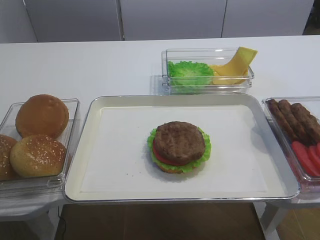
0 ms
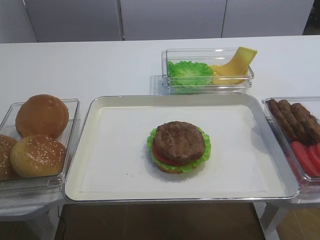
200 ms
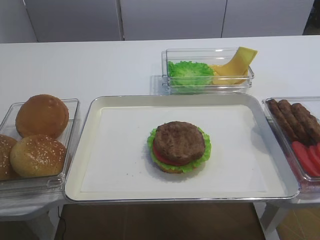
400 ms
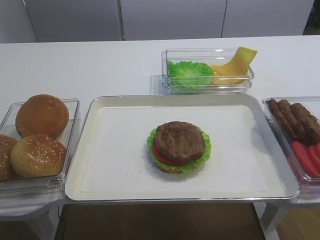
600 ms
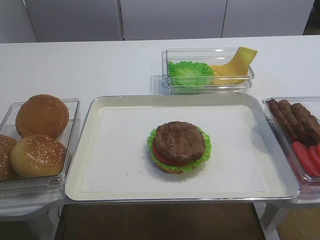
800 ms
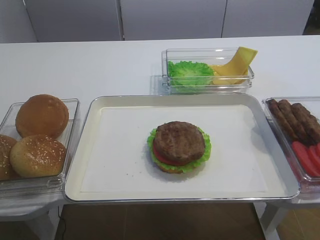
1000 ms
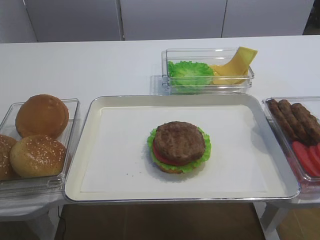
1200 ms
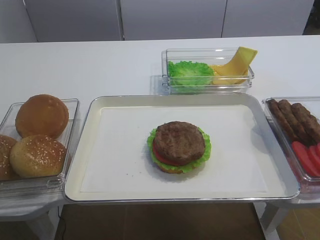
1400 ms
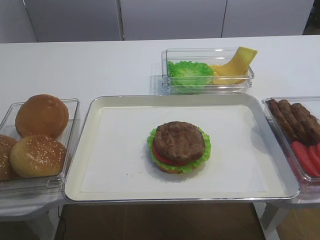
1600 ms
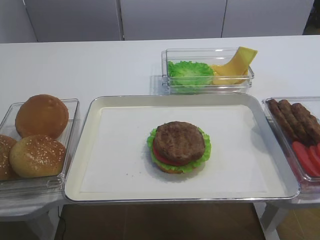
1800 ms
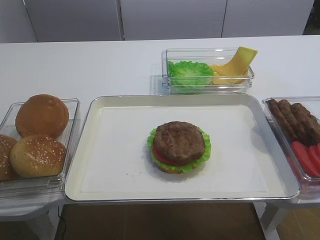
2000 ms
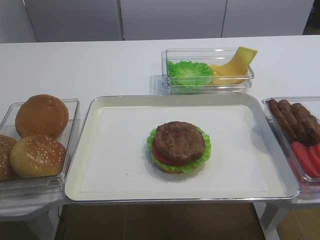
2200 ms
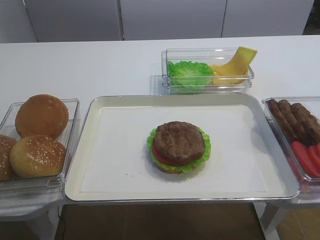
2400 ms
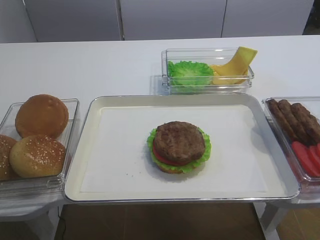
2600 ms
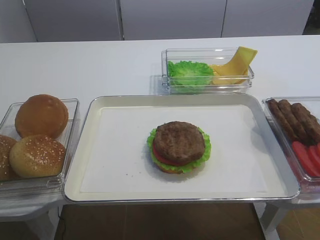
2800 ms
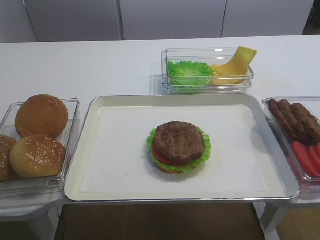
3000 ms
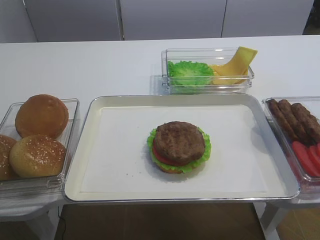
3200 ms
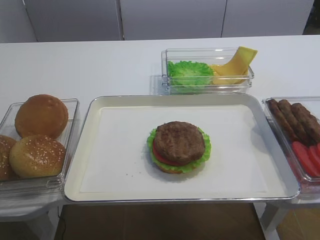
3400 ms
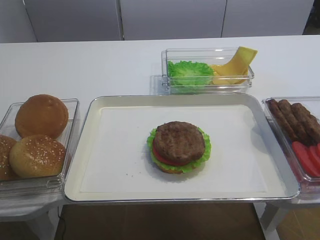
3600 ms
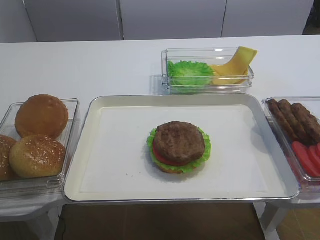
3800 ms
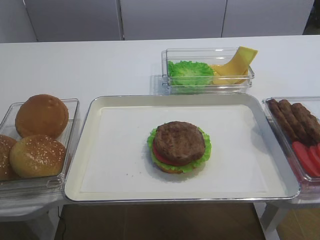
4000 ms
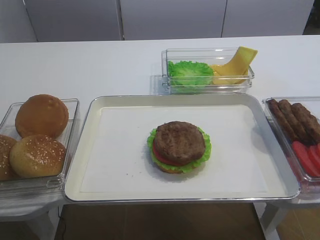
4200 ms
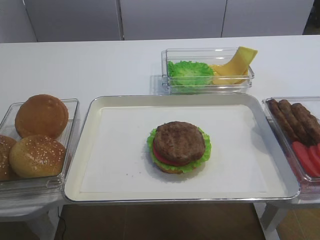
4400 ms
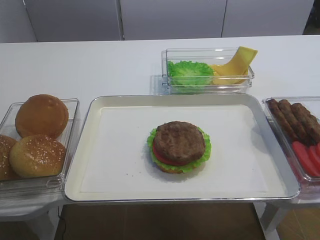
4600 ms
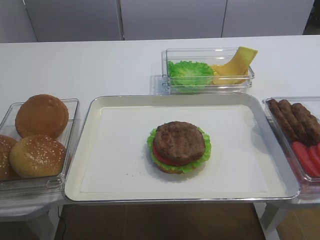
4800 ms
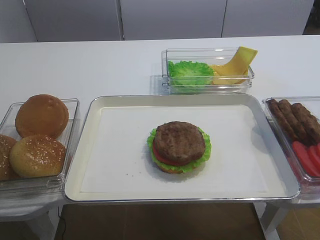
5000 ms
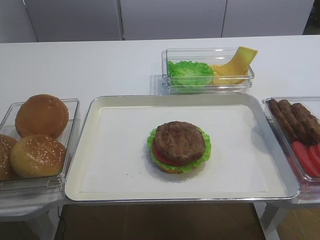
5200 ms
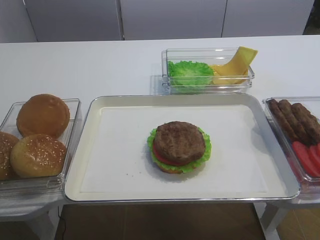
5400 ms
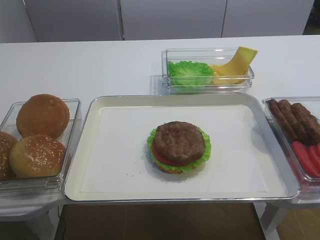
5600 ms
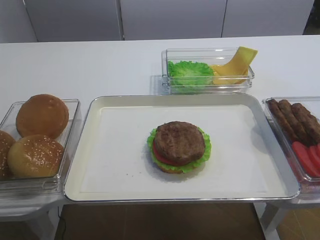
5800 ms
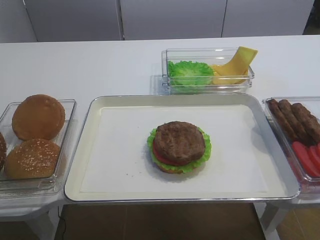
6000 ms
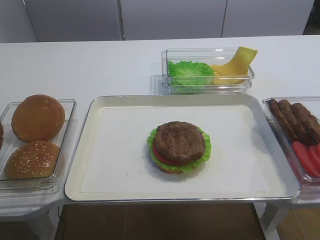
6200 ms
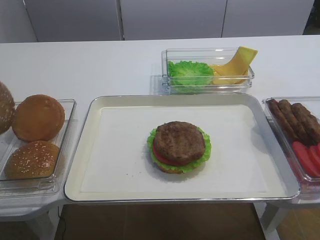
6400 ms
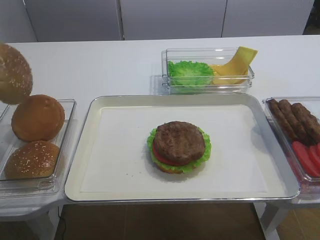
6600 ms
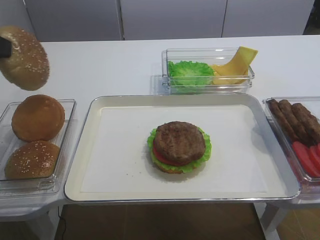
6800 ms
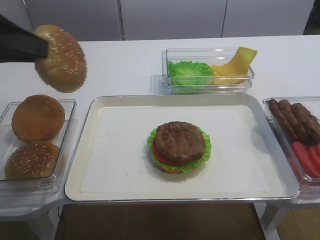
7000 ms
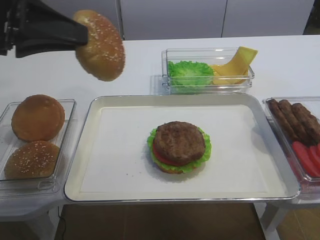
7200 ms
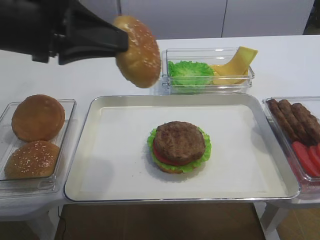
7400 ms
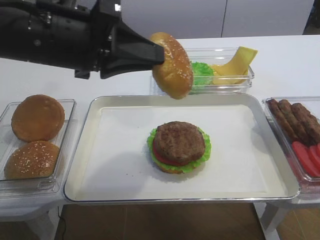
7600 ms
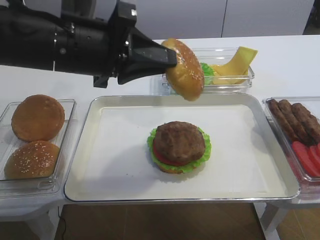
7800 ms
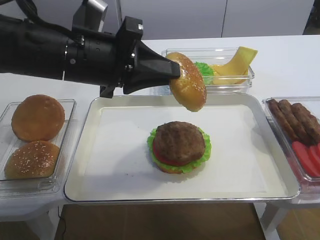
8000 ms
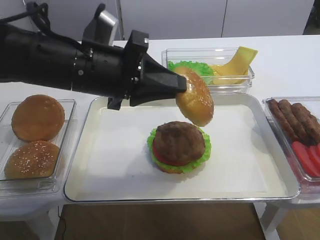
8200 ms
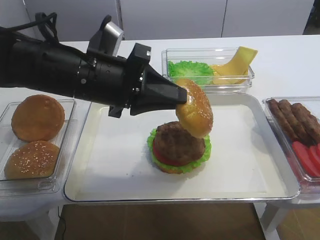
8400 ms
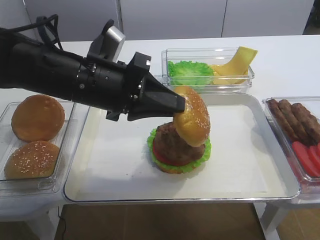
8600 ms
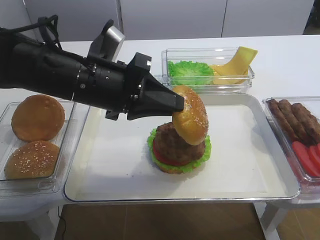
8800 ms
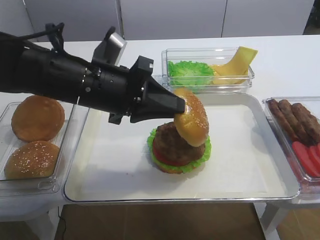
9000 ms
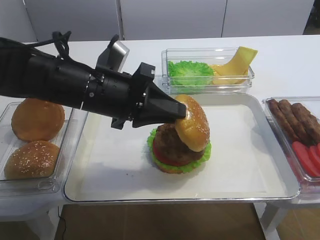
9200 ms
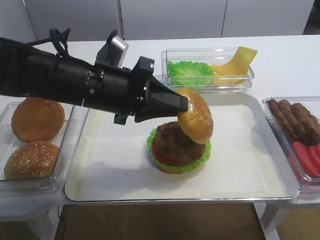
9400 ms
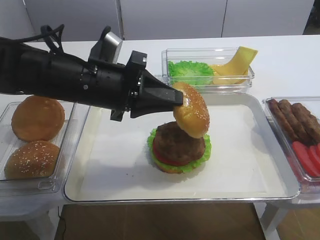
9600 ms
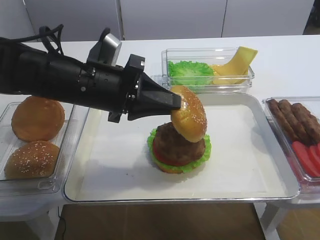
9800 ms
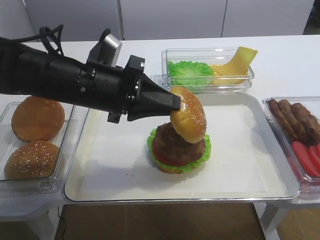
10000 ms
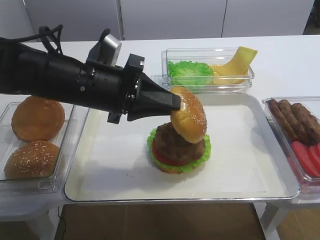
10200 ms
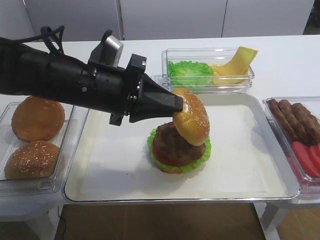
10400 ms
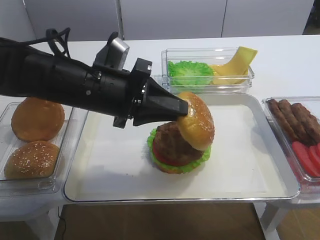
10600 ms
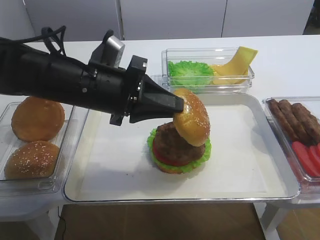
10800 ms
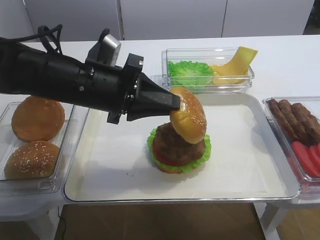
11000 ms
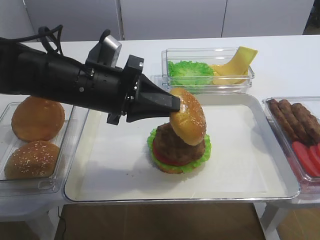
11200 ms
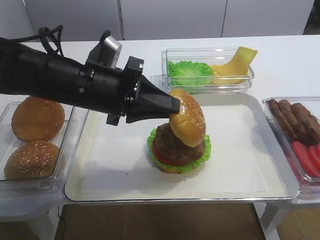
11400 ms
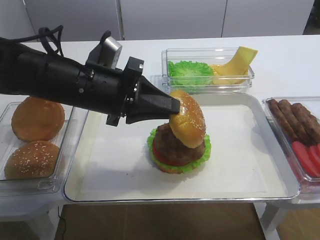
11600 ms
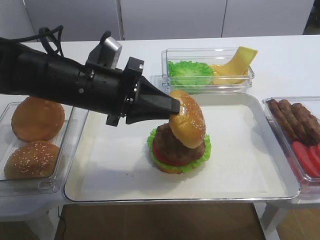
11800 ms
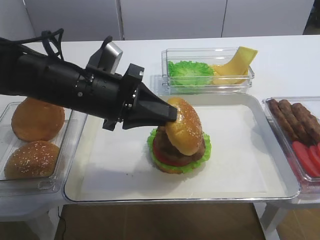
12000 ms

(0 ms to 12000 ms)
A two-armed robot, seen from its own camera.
Step, 0 ms - 6000 ms: Pick up the hamburger lid with the left gripper.
4400 ms - 6000 ms: The left gripper closes up.
6000 ms - 7600 ms: The left gripper travels to the right by about 20 cm.
7600 ms - 9000 ms: The left gripper shifts some 10 cm downward.
9000 ms - 10400 ms: Neither gripper changes place.
10400 ms - 12000 ms: Both grippers stay put.

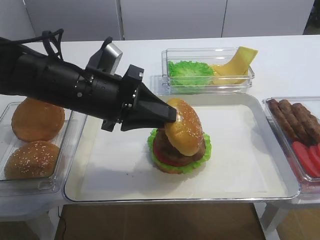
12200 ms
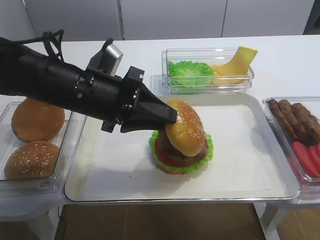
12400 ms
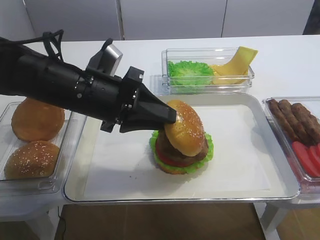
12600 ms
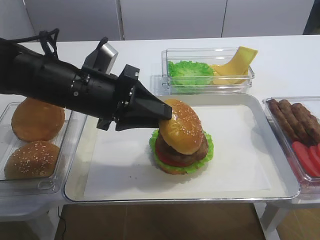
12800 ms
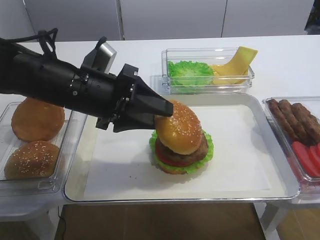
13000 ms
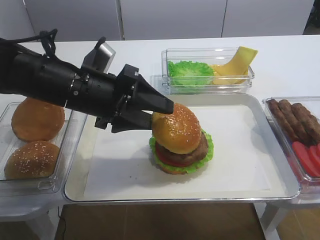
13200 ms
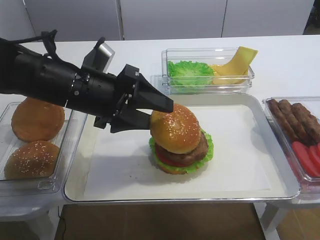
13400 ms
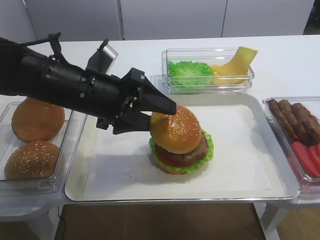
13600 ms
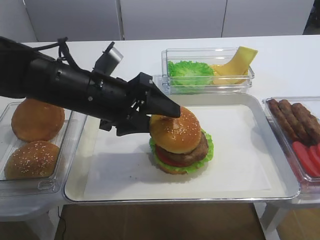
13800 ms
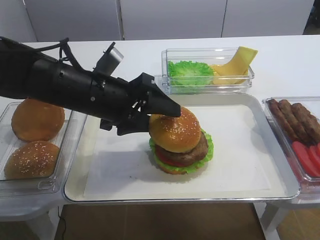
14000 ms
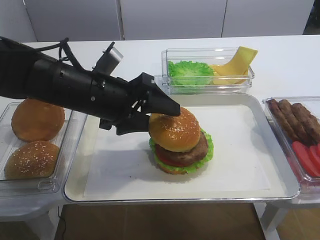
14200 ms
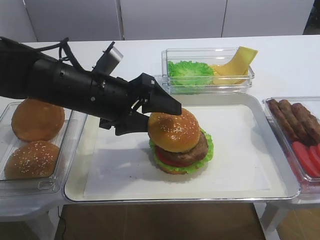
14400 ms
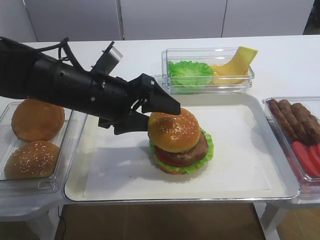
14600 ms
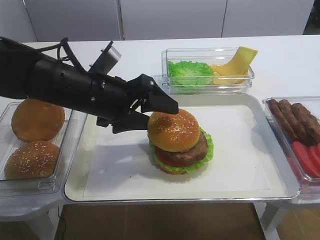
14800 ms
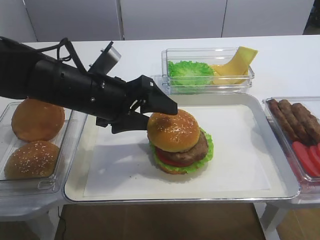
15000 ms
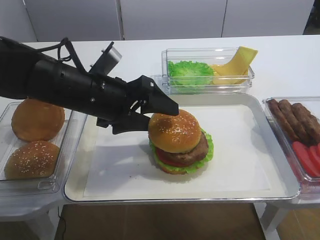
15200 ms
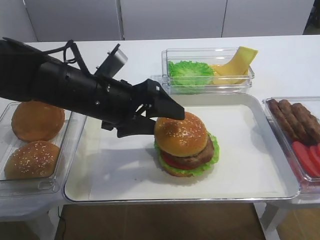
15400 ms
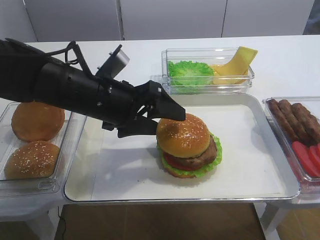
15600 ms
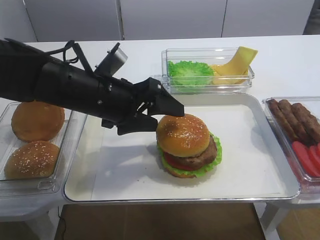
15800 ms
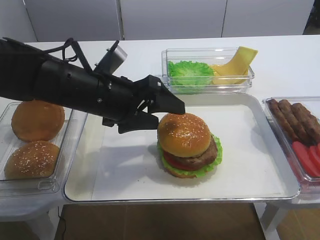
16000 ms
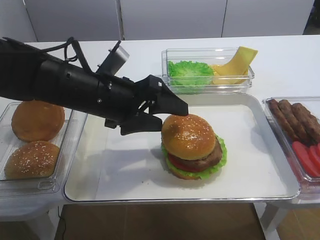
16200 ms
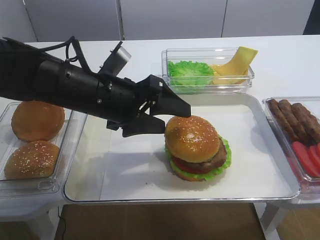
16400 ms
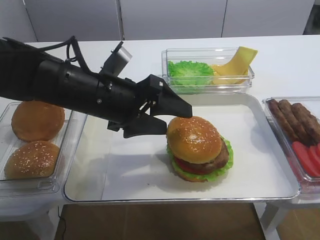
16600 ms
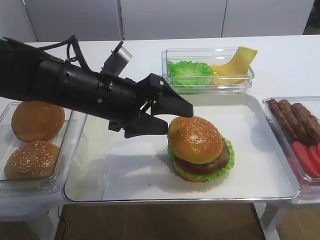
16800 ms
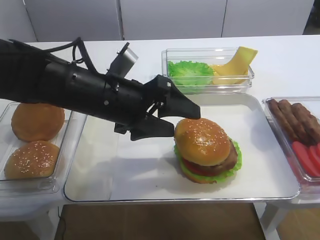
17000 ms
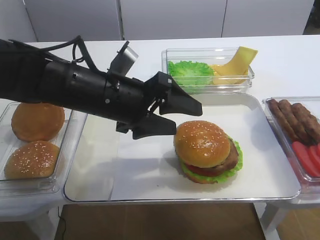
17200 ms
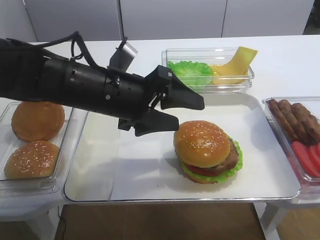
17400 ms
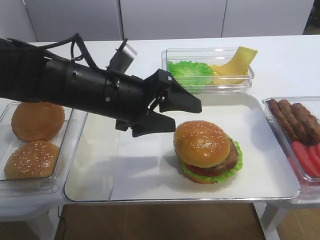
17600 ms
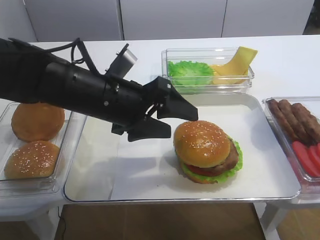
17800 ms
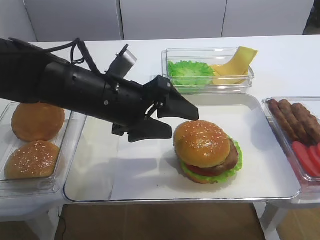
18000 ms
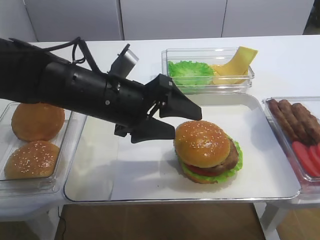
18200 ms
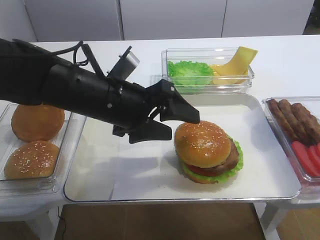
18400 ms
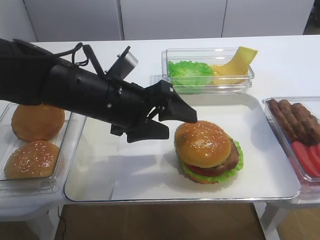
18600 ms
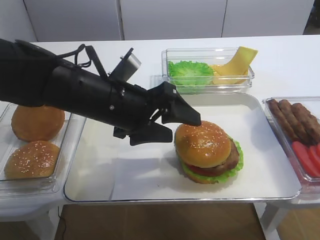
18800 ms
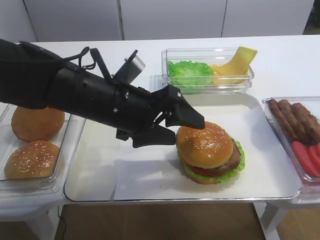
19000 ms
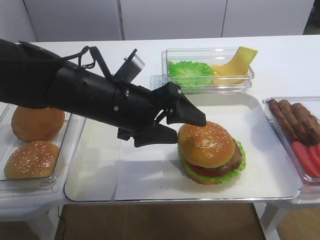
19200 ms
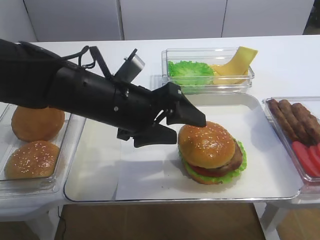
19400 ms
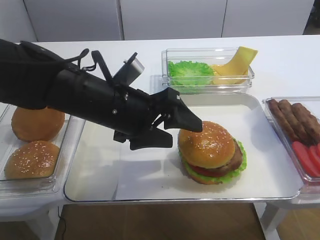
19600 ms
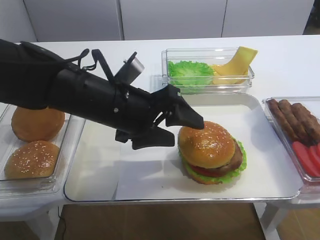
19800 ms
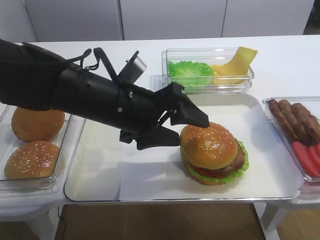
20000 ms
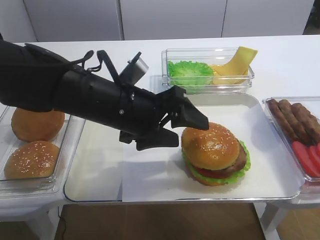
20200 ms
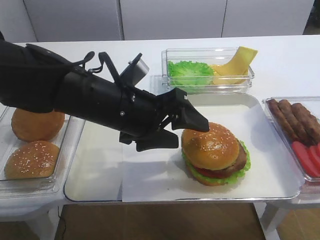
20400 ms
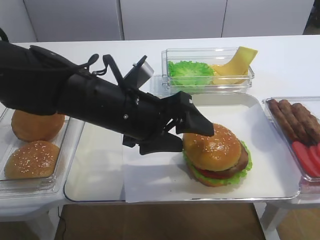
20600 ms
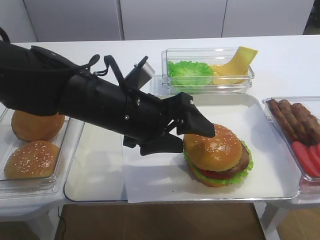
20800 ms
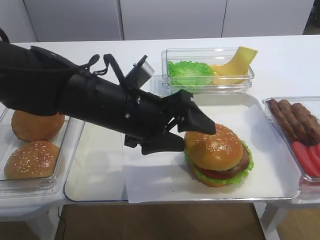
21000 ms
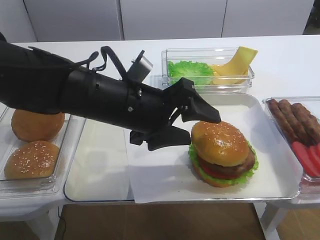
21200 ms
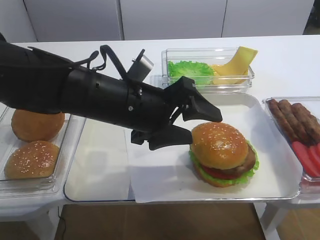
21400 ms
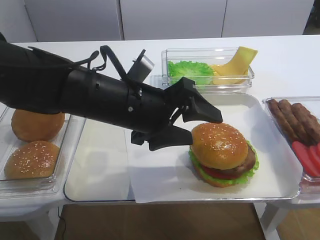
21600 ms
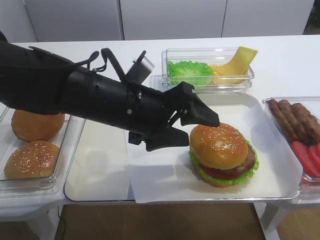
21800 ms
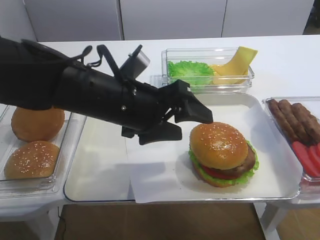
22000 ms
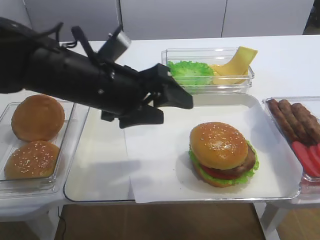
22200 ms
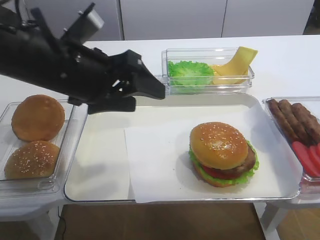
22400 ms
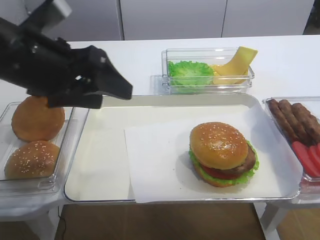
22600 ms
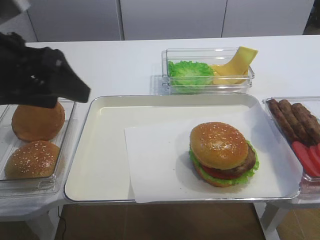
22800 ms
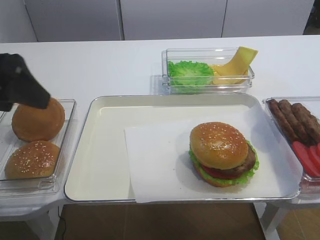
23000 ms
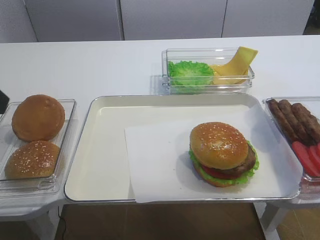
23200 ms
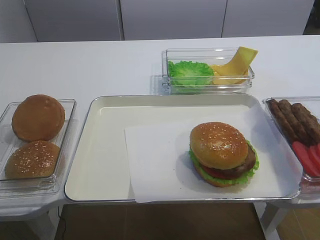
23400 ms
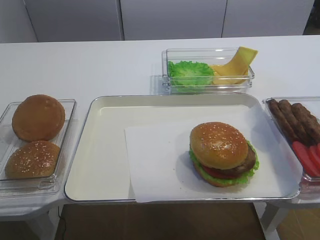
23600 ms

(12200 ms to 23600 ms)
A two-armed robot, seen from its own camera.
Step, 12200 ms - 18200 ms: Place the hamburger lid on the cutlet slice with the left gripper.
12200 ms - 13600 ms: The left gripper opens.
13600 ms - 17800 ms: The grippers stay close to where they were, moving slightly.
17800 ms - 19400 ms: The two grippers keep their place.
19400 ms - 20800 ms: There are only small adjustments of the grippers.
22200 ms - 23600 ms: The left gripper moves to the left, backward and upward, some 30 cm.
